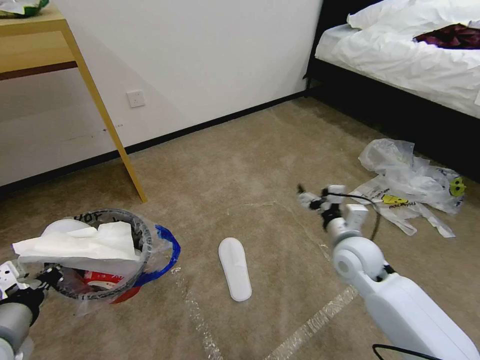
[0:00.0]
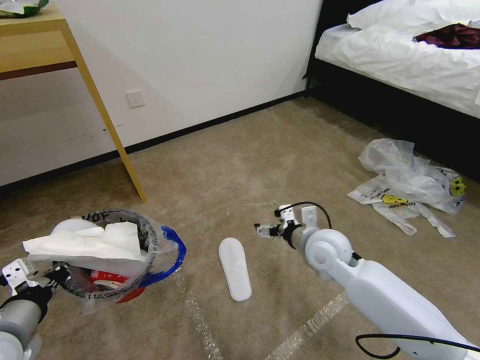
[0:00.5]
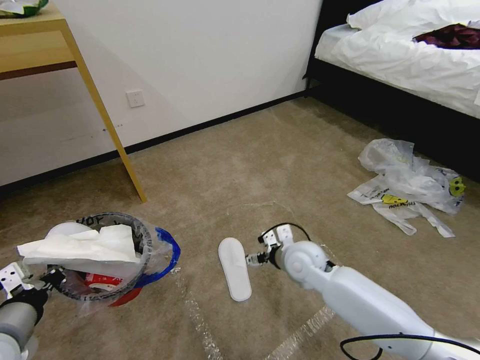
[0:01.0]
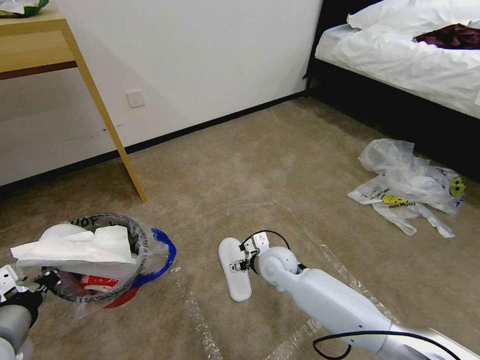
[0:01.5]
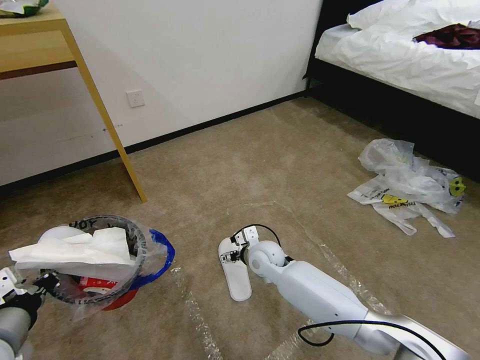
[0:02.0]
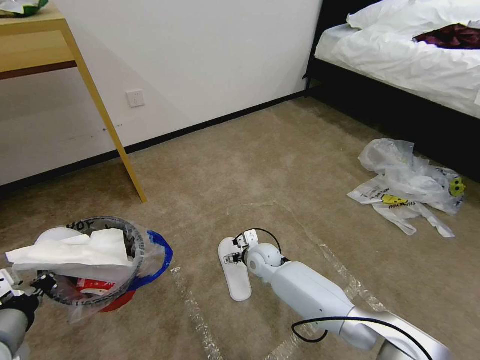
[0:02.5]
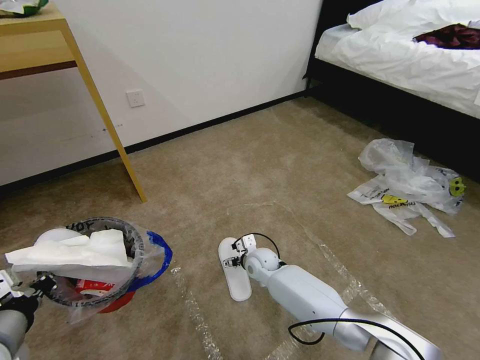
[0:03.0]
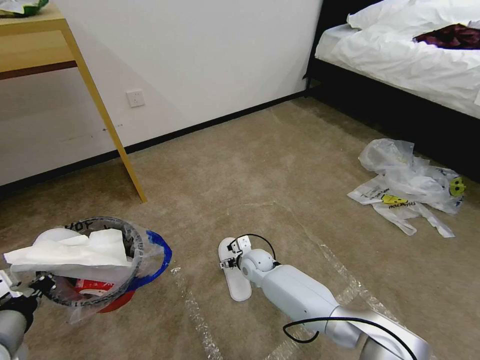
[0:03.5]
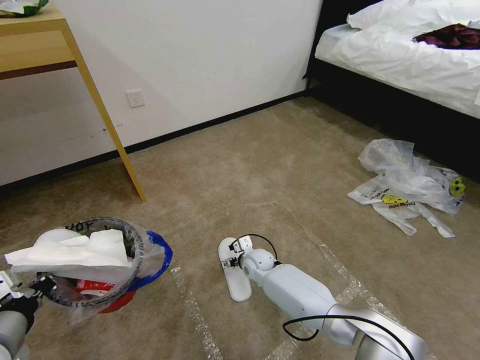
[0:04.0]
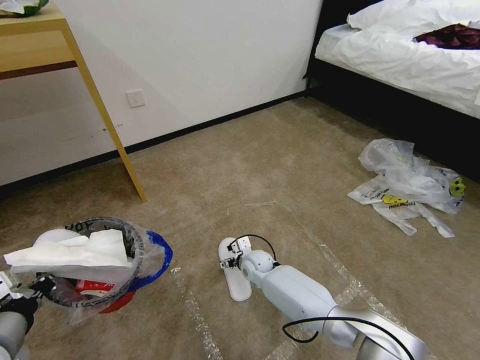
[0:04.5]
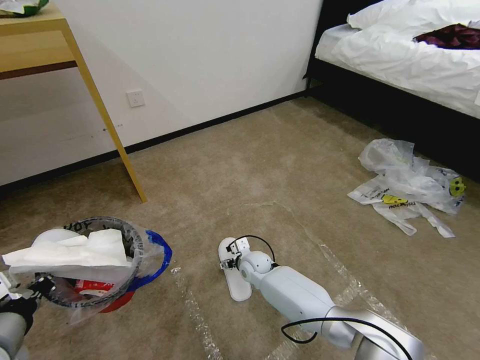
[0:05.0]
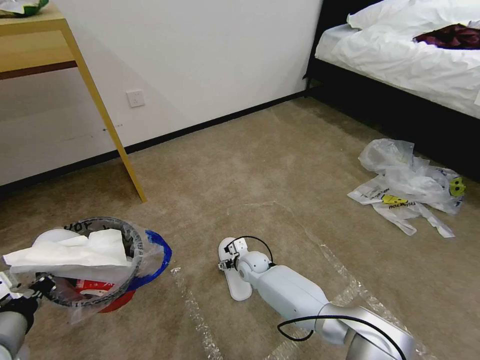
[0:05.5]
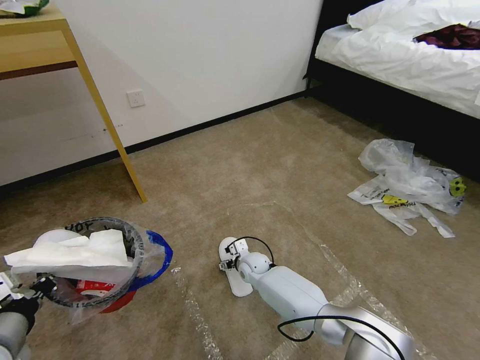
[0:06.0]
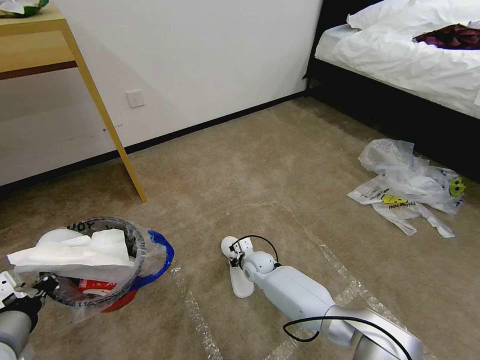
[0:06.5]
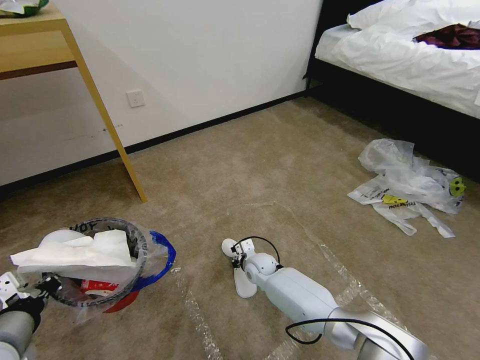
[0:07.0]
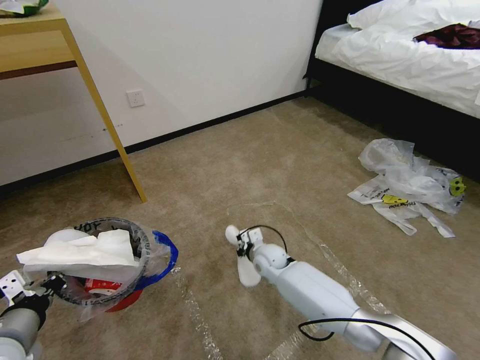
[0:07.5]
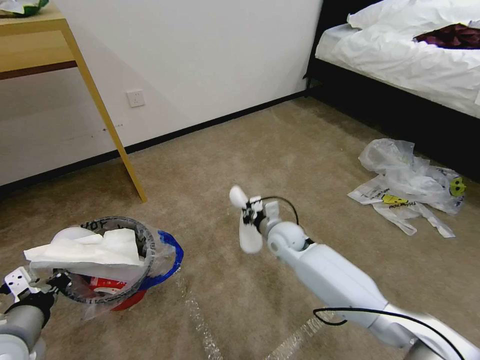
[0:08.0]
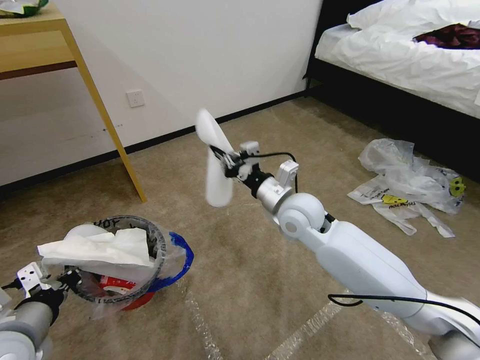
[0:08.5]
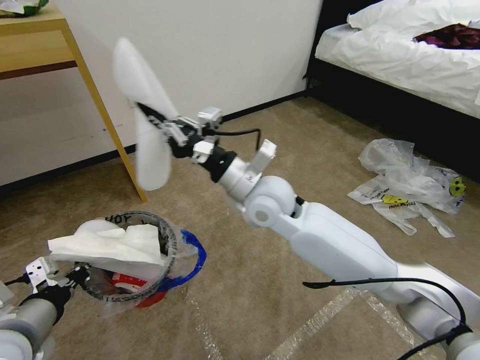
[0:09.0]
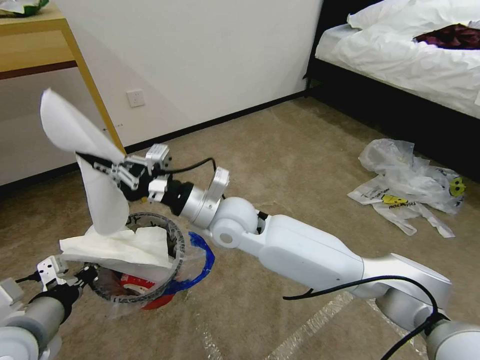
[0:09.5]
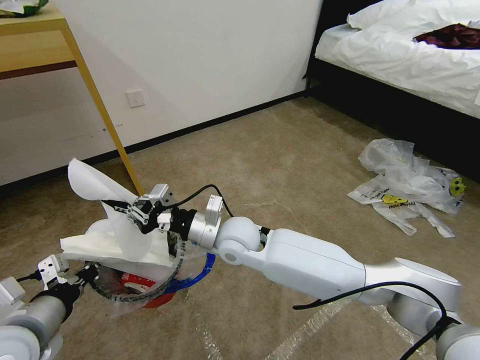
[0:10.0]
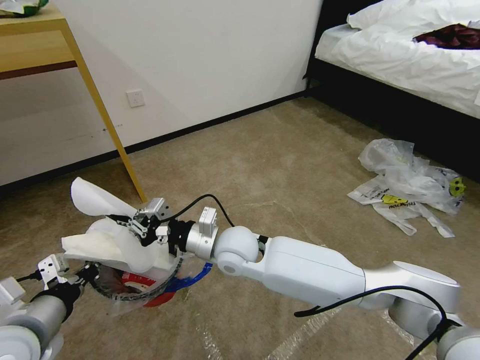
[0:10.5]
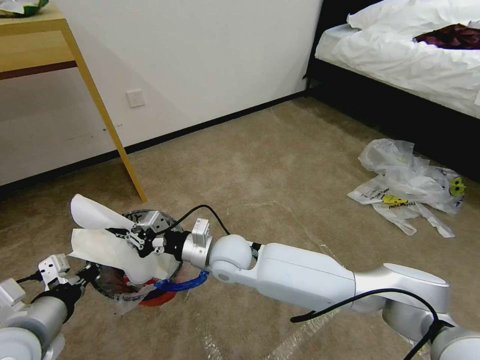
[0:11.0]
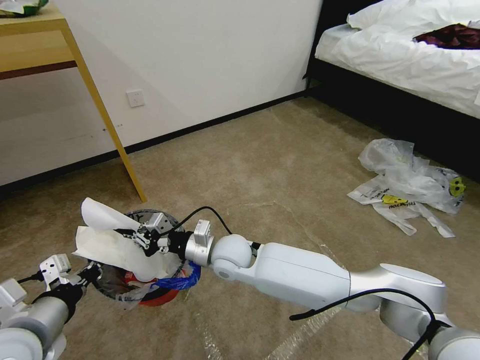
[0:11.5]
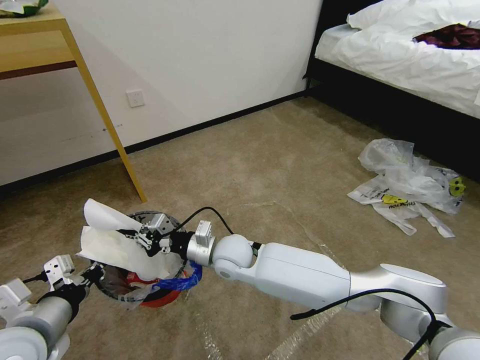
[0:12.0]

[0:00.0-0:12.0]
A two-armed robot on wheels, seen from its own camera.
Task of the whole recording: Pick up the trash bin and place the garbage on the floor into it.
0:00.0 to 0:02.0: The right gripper shifts about 20 cm to the left and downward.
0:02.0 to 0:04.0: The right gripper travels downward by roughly 10 cm.
0:04.0 to 0:06.0: The grippers stay close to where they were, moving slightly.
0:06.0 to 0:08.0: The right gripper moves upward and to the right, some 20 cm, and closes its fingers.
0:08.0 to 0:10.0: The right gripper shifts roughly 20 cm to the left, upward and backward.
0:10.0 to 0:12.0: The right gripper heads downward, covering roughly 5 cm.

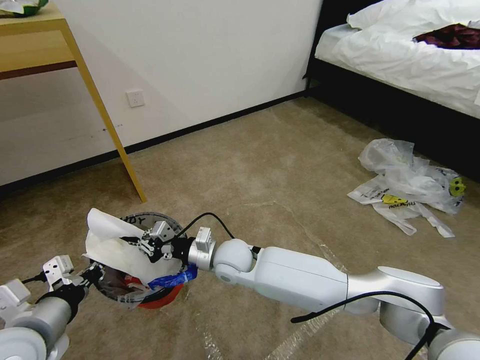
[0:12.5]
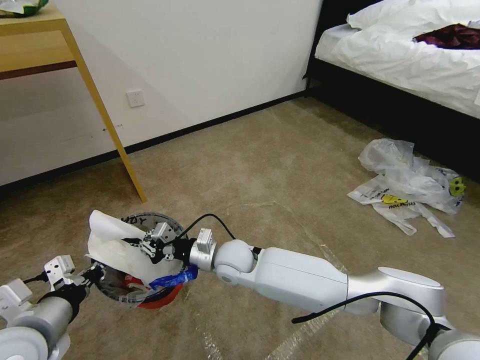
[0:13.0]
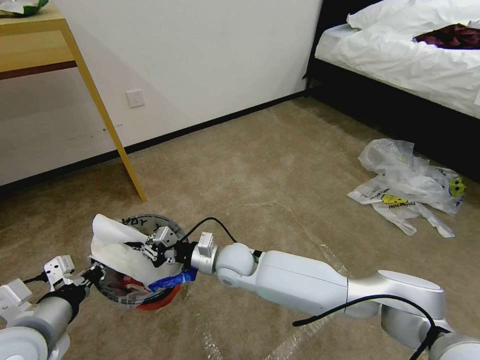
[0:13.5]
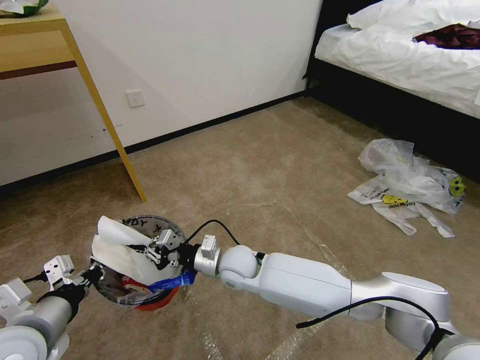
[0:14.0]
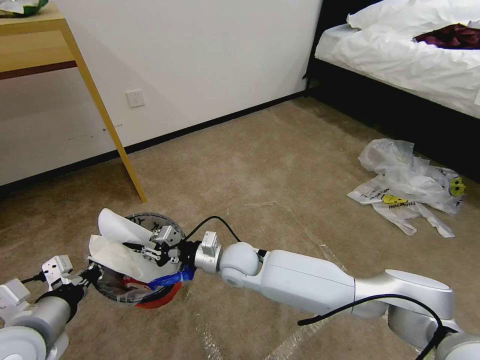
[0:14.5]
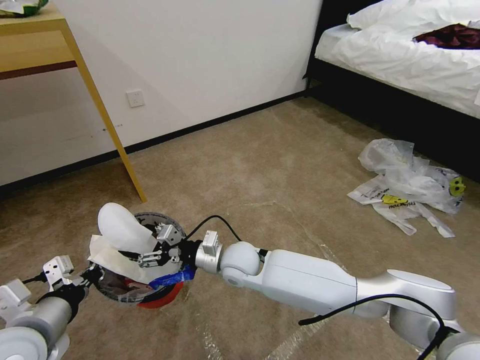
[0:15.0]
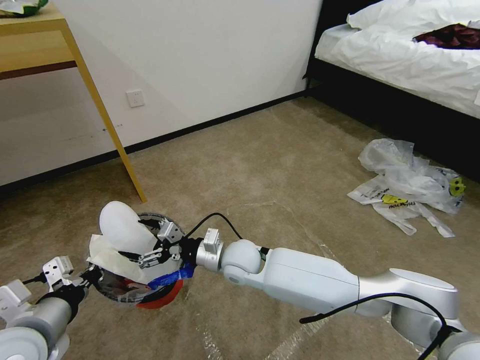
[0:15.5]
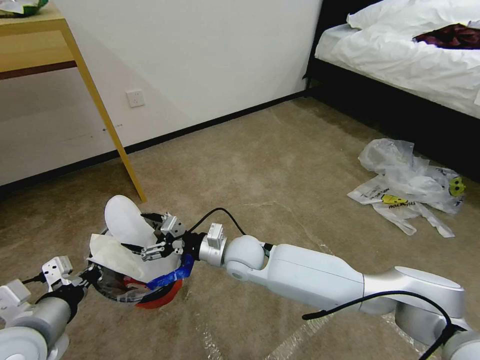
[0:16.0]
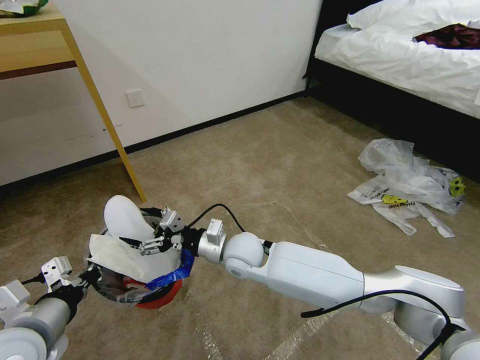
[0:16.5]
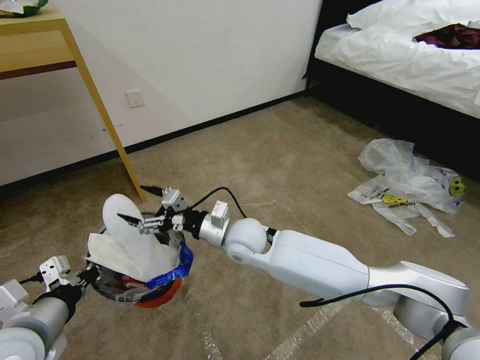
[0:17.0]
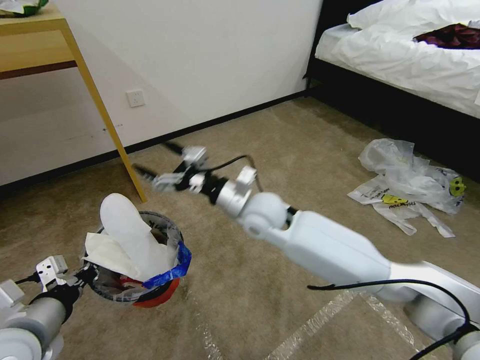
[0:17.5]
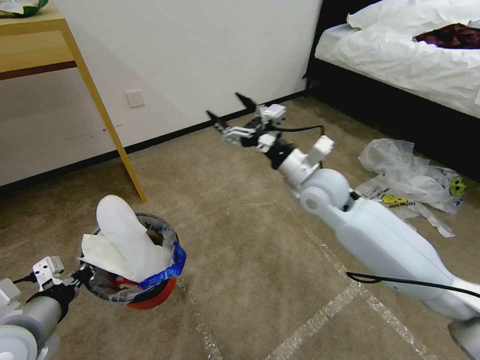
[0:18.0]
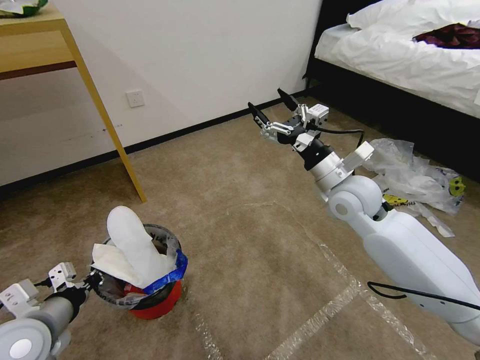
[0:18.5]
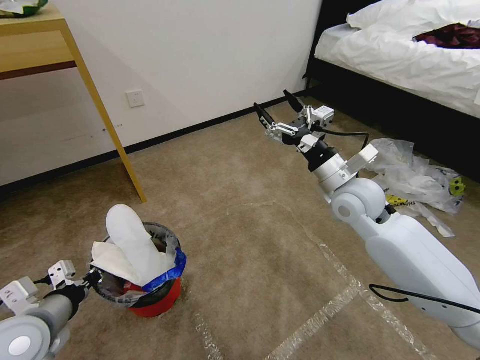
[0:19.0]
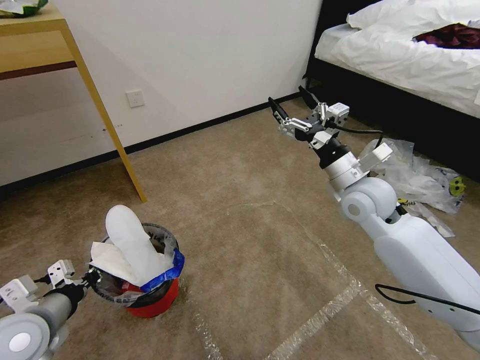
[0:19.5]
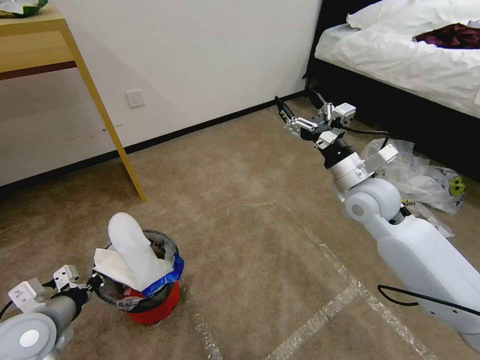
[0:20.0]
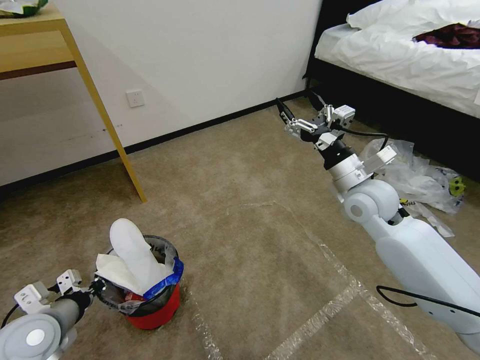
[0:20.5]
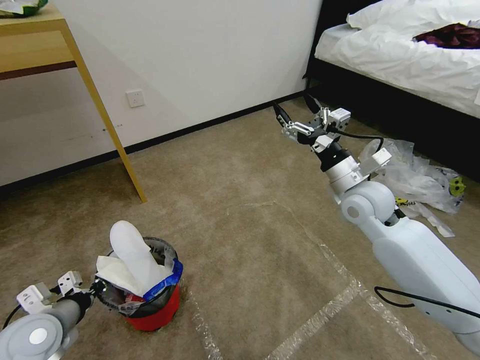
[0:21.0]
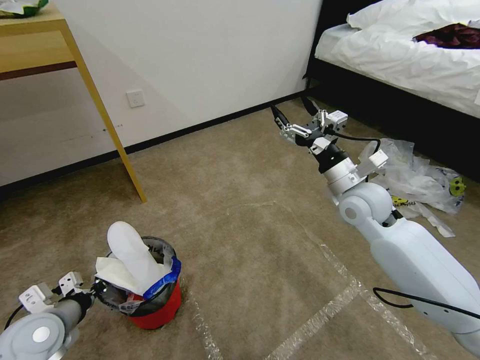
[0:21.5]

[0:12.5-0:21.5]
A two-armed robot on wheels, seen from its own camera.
Task of the whole recording: Pick up the trash bin and place the garbage on the floor into it.
0:12.5 to 0:14.5: There are only small adjustments of the grippers.
0:14.5 to 0:17.0: The right gripper moves upward, about 5 cm, and opens up.
0:17.0 to 0:19.5: The left gripper moves approximately 5 cm. Meanwhile the right gripper goes roughly 25 cm to the right and upward.
0:19.5 to 0:21.5: The left gripper shifts roughly 5 cm downward.

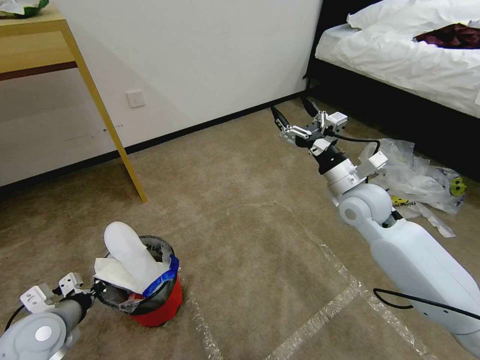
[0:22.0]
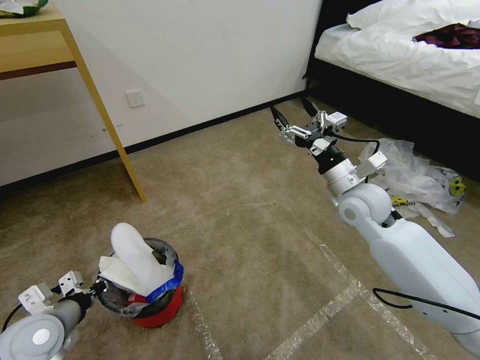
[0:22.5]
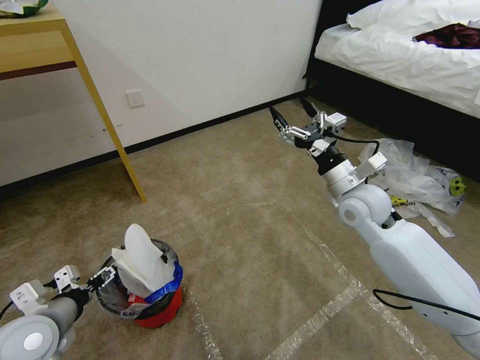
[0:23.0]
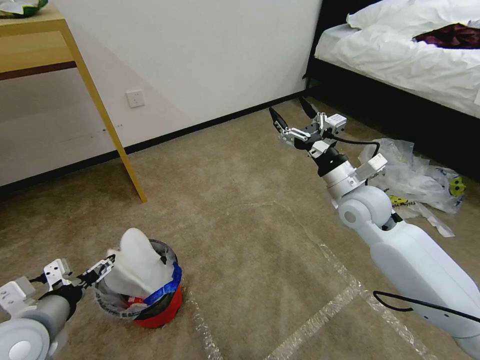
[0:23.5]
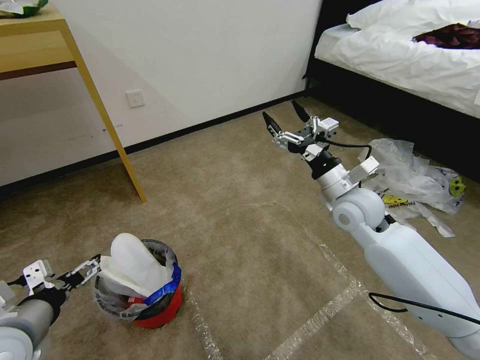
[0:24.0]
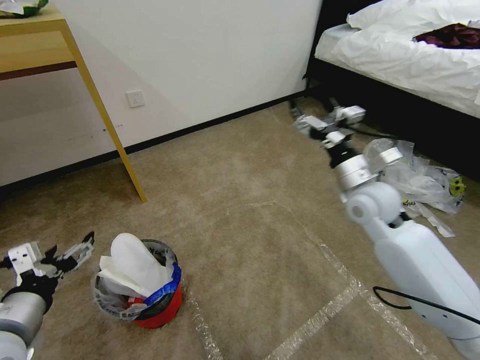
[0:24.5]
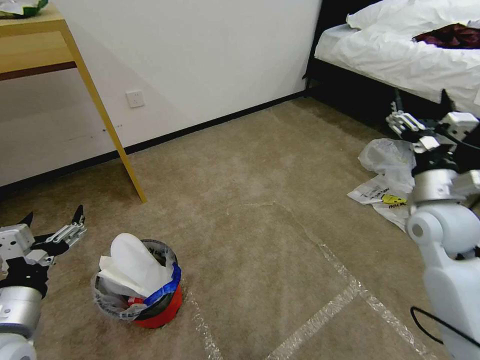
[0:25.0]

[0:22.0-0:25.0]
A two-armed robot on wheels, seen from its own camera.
Task of the whole recording: Pick up the trash bin and place the garbage on the floor into it.
0:22.0 to 0:23.5: The left gripper travels upward by some 10 cm, and opens.
0:23.5 to 0:25.0: The right gripper travels to the right and backward by roughly 15 cm; the left gripper ends up roughly 5 cm from where it was.

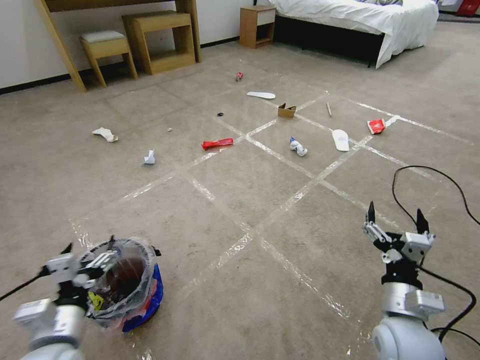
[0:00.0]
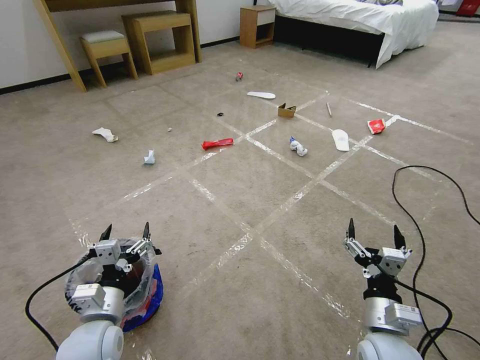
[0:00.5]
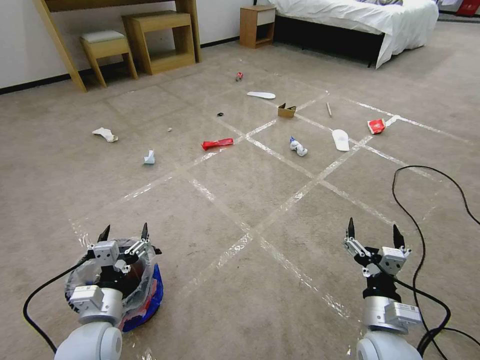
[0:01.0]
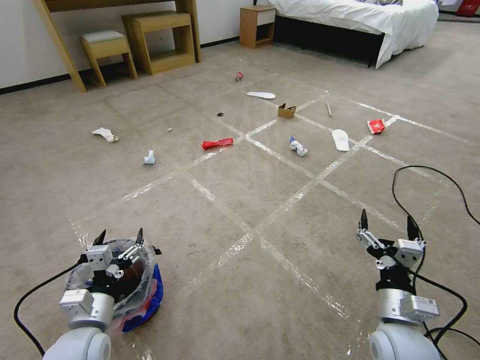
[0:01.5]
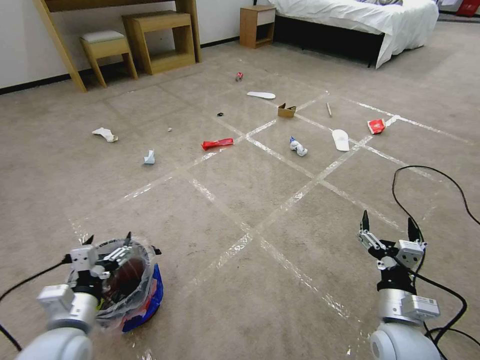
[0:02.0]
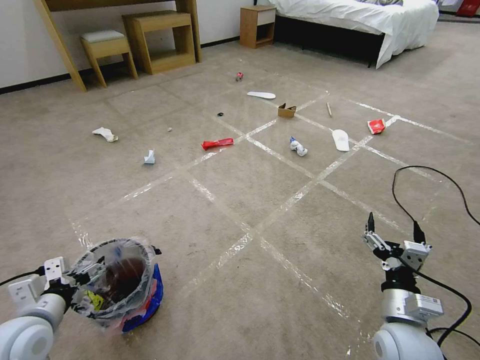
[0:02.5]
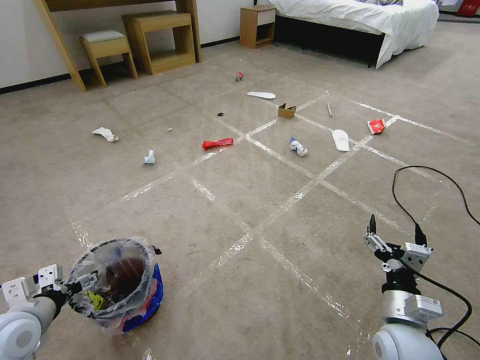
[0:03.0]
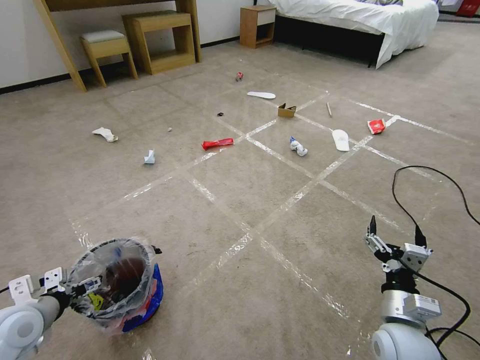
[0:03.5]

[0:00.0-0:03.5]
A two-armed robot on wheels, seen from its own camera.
Task of the whole recording: Pick up the trash bin and place the garbage on the floor into it.
0:02.0 to 0:03.5: The left gripper heads to the left, covering some 10 cm.
